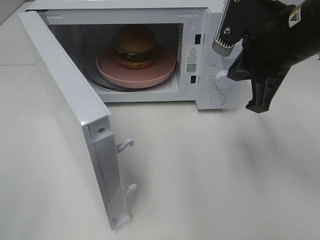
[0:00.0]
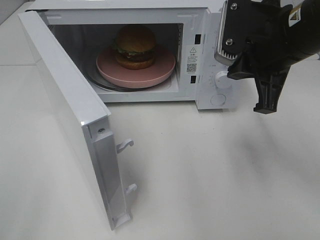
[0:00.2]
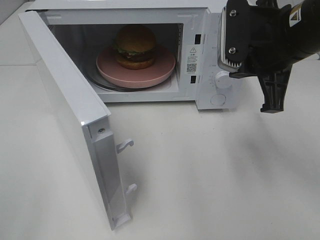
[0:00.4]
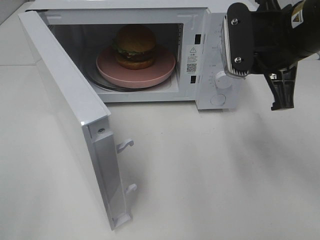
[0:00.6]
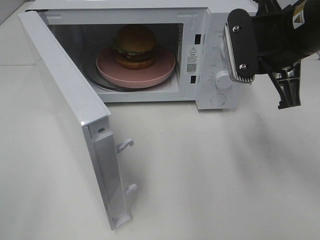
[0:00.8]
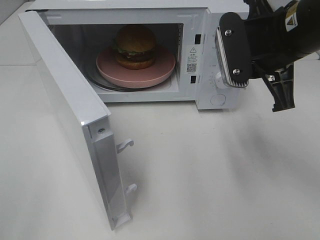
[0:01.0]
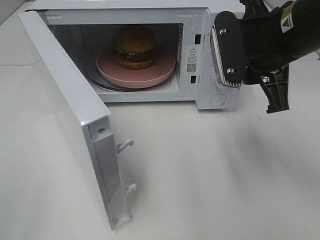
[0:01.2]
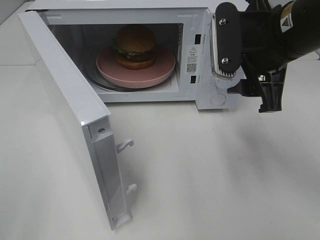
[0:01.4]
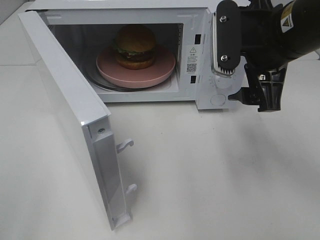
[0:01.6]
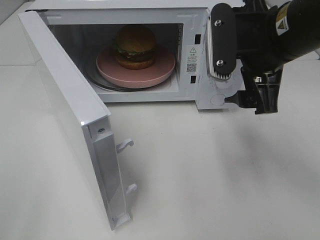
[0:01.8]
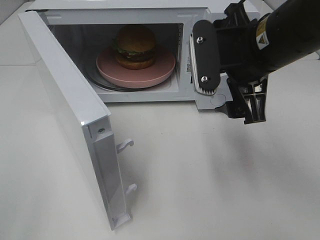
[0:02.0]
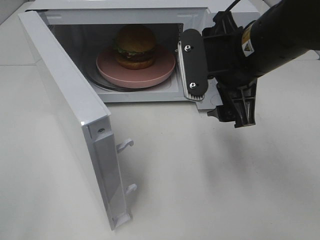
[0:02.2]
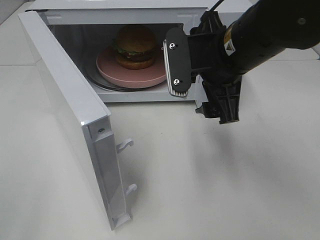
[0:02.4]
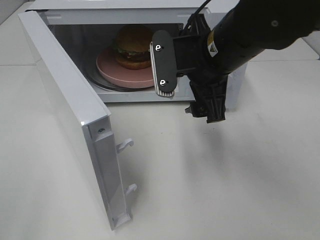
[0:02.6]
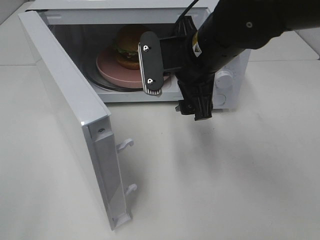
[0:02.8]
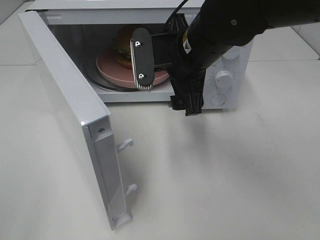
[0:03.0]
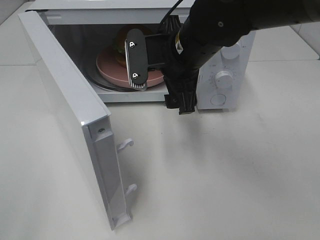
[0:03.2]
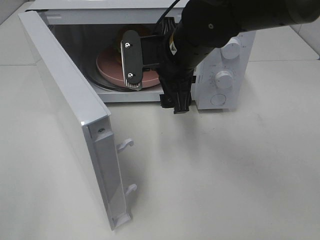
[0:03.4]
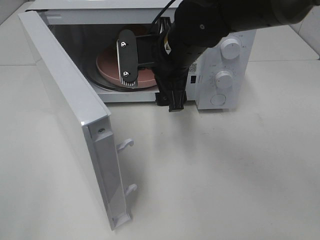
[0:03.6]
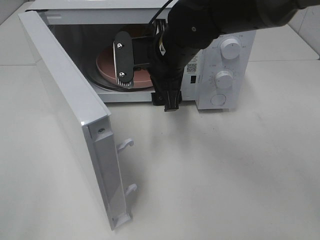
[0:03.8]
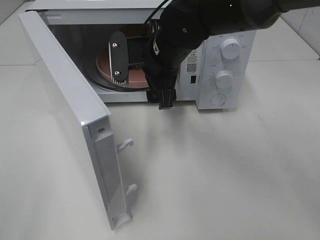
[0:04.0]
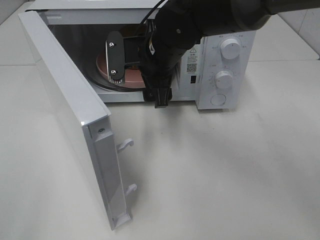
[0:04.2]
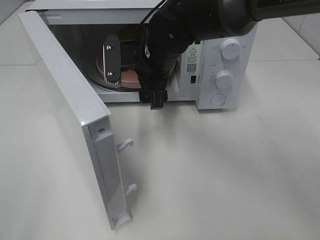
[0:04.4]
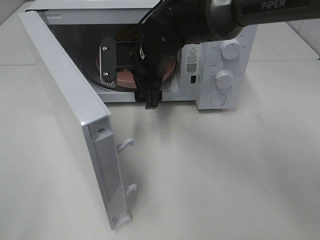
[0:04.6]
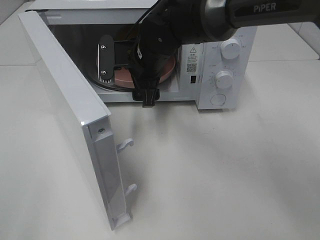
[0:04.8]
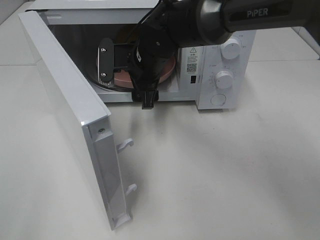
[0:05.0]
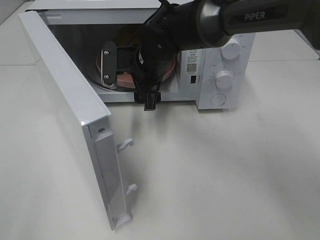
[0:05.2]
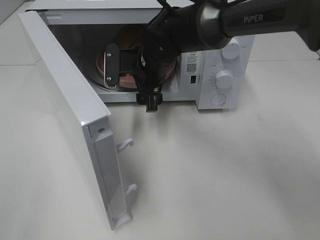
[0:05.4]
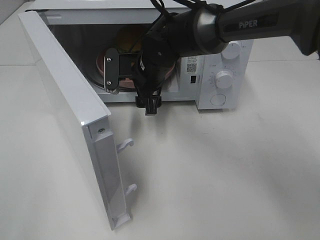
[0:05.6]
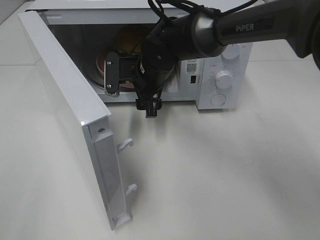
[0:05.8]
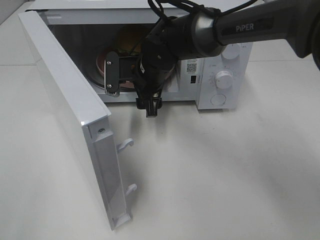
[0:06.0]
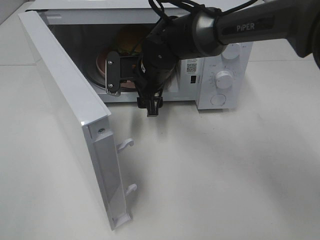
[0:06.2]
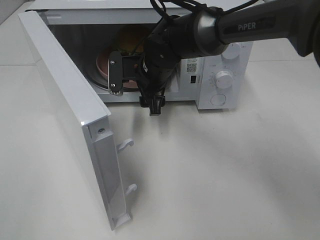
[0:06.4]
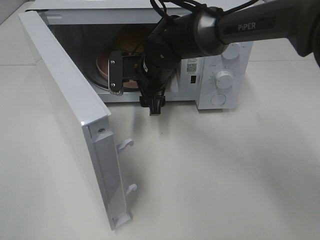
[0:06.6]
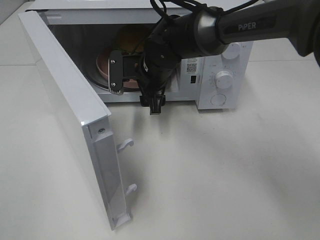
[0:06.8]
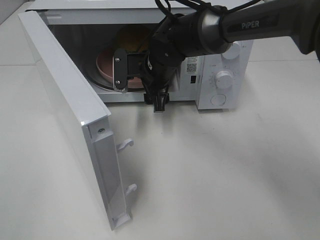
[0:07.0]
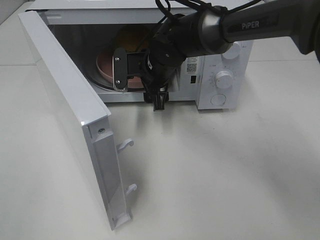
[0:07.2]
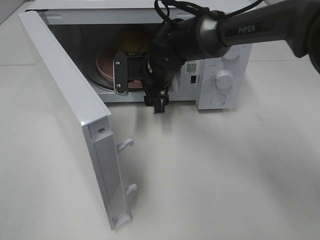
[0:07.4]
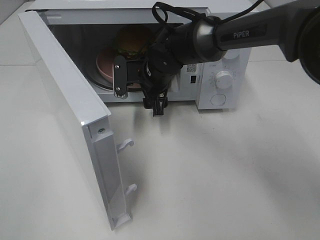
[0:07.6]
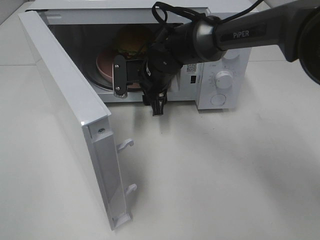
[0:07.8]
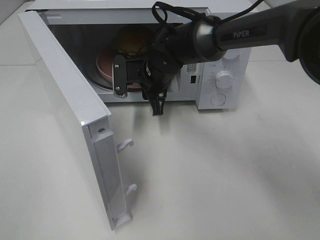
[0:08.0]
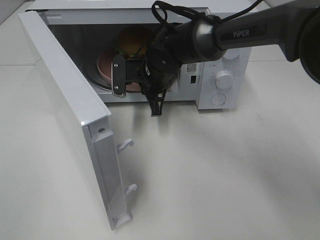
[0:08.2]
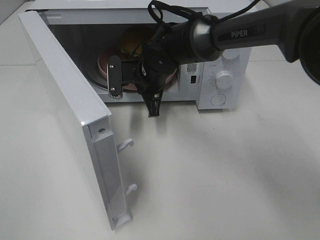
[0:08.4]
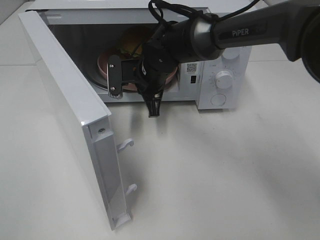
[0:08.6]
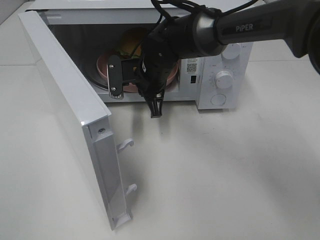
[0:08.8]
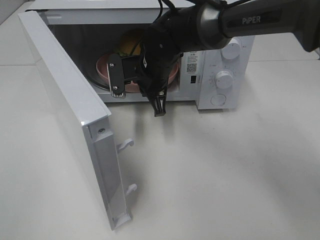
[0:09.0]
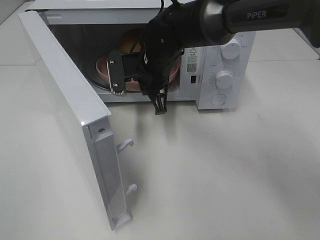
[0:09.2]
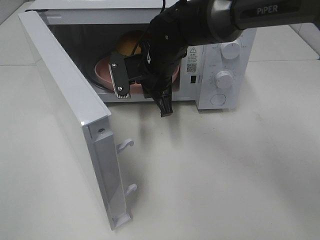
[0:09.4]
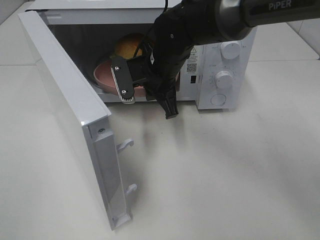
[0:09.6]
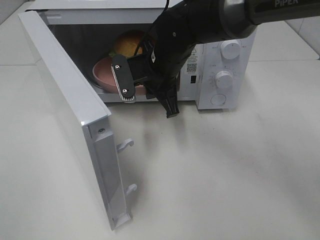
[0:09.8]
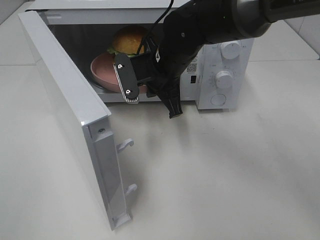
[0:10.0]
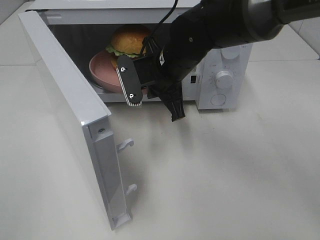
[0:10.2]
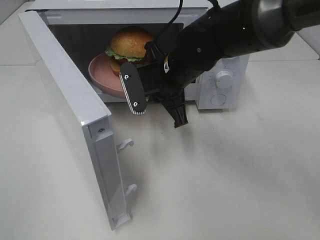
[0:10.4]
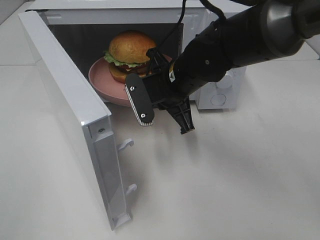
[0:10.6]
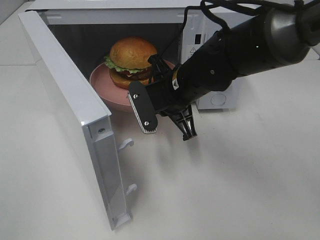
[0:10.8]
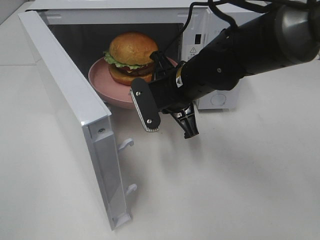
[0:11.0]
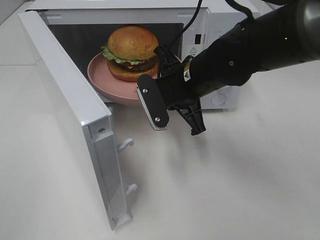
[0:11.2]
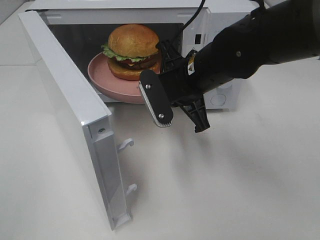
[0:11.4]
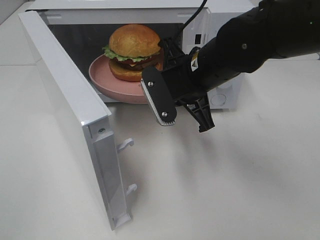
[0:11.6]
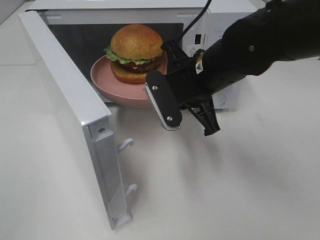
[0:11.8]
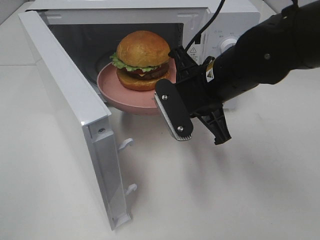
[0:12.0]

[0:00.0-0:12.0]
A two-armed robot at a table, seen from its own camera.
Task of the whole recording: Heat the burger.
Step, 0:00.0 to 0:08.2: Right hand: grab the plate with the hamburger.
0:00.0 to 0:01.6: The right gripper opens its fingers.
0:01.6 to 0:03.0: The right gripper goes roughly 10 cm to the left.
0:03.0 to 0:04.4: The right gripper goes approximately 10 cm forward and to the left.
0:04.4 to 0:06.0: The right gripper changes place by approximately 5 cm.
0:06.0 to 0:07.6: The grippers stay close to where they were, moving slightly.
0:07.6 to 0:09.0: The right gripper closes.
0:09.0 to 0:10.4: The right gripper travels backward by about 5 cm.
0:10.4 to 0:12.0: The right gripper moves backward and to the right, some 10 cm.

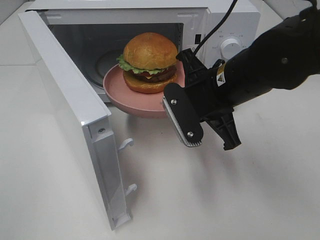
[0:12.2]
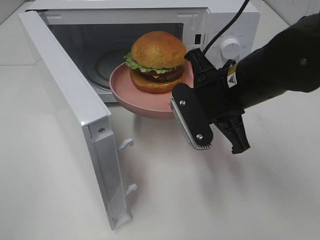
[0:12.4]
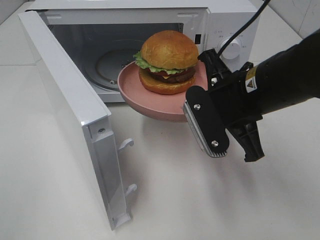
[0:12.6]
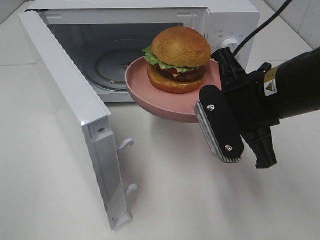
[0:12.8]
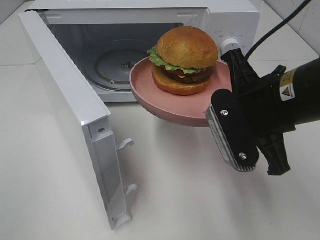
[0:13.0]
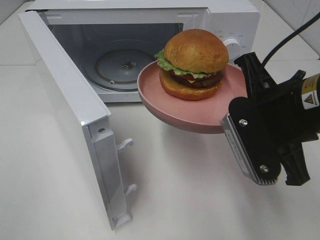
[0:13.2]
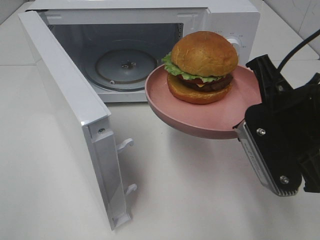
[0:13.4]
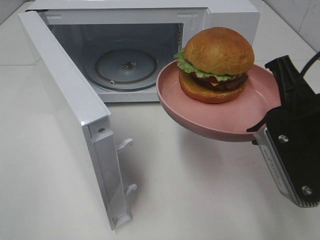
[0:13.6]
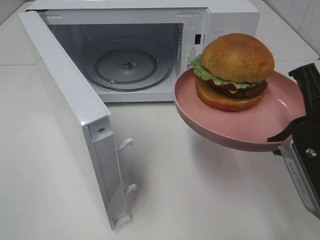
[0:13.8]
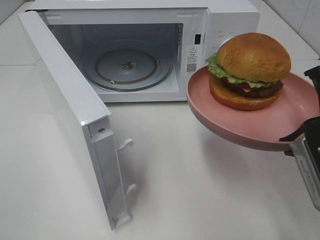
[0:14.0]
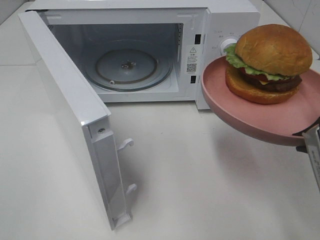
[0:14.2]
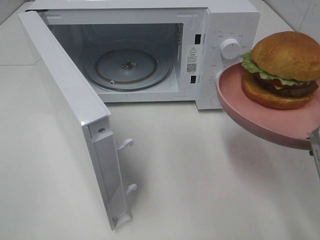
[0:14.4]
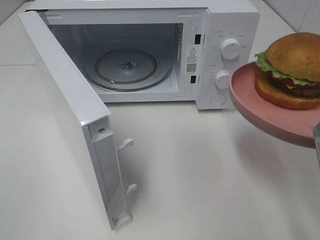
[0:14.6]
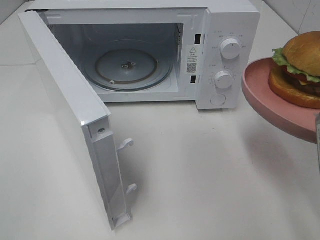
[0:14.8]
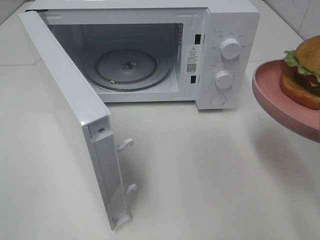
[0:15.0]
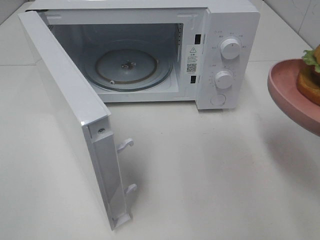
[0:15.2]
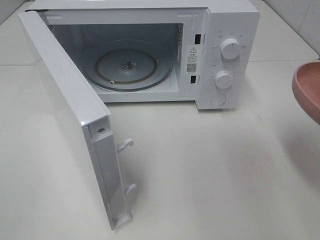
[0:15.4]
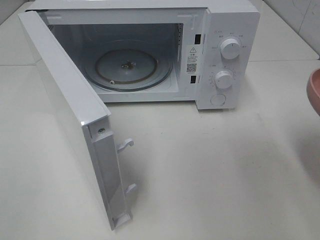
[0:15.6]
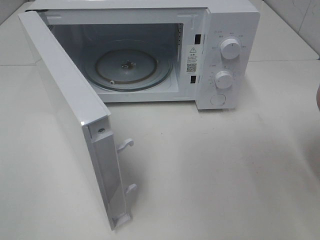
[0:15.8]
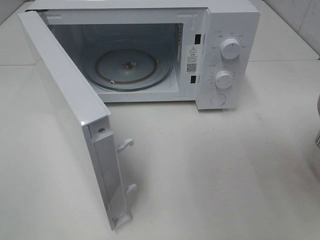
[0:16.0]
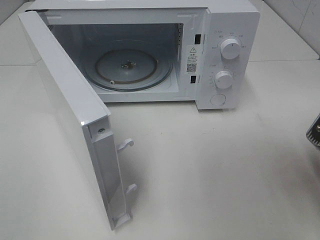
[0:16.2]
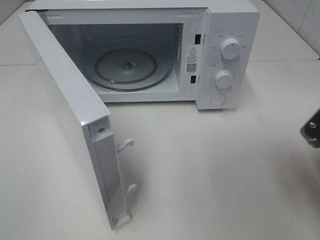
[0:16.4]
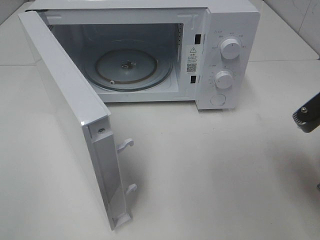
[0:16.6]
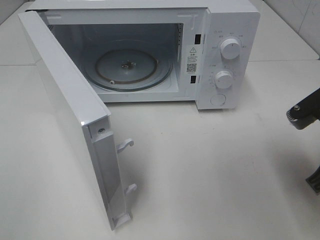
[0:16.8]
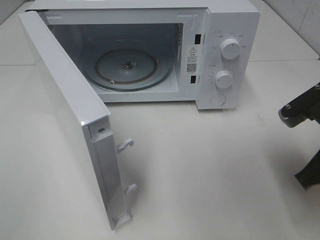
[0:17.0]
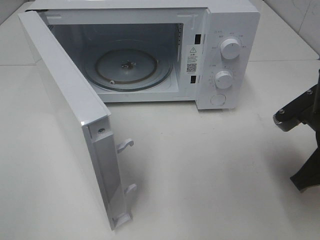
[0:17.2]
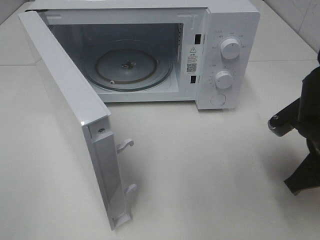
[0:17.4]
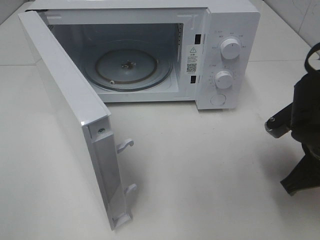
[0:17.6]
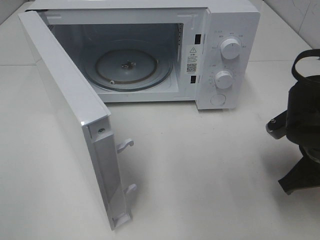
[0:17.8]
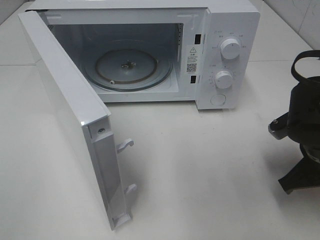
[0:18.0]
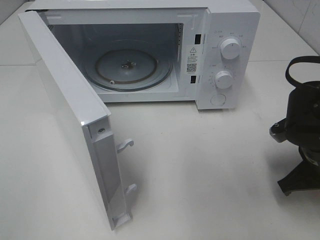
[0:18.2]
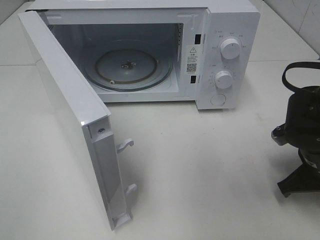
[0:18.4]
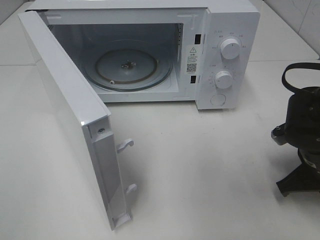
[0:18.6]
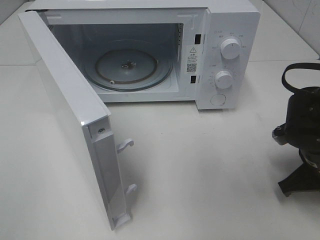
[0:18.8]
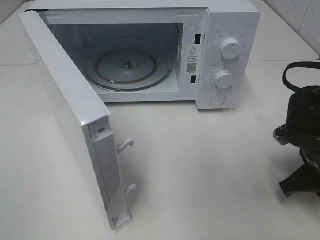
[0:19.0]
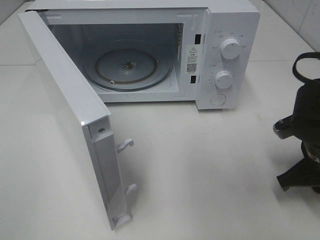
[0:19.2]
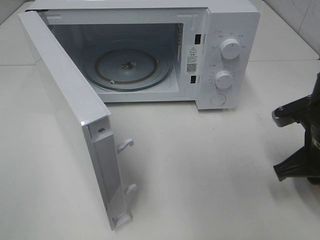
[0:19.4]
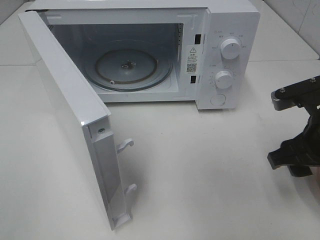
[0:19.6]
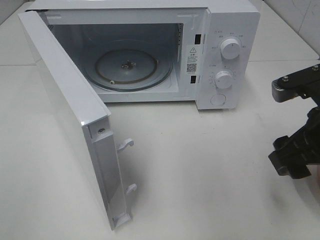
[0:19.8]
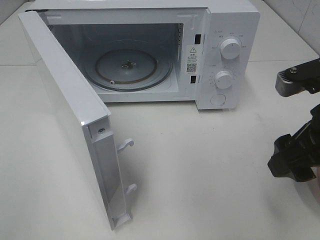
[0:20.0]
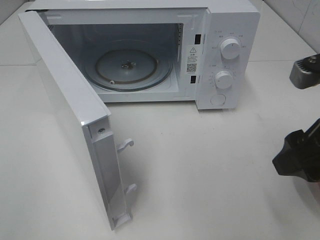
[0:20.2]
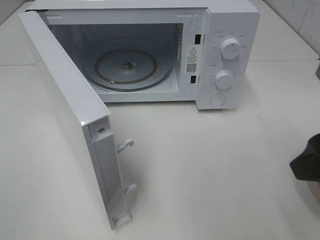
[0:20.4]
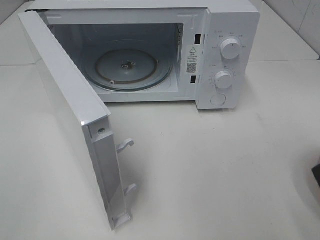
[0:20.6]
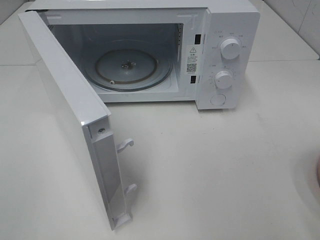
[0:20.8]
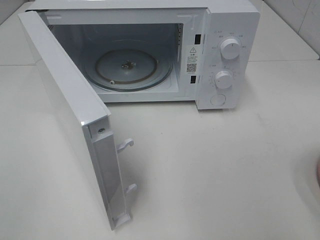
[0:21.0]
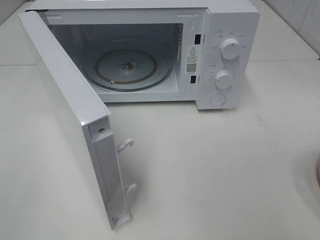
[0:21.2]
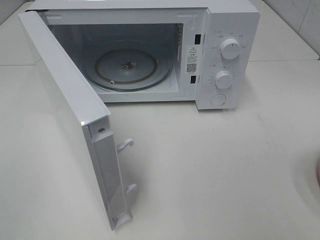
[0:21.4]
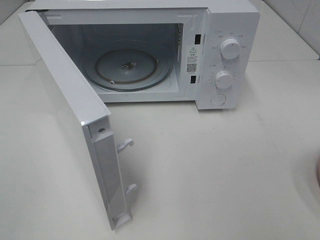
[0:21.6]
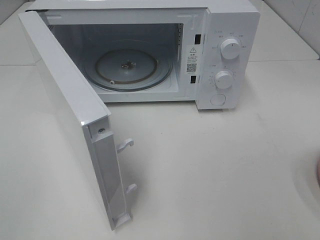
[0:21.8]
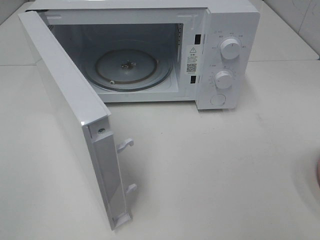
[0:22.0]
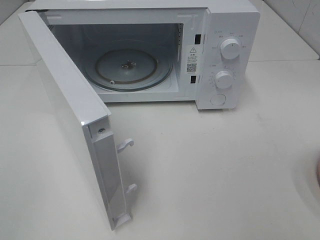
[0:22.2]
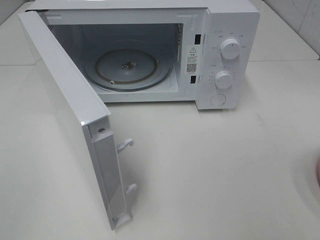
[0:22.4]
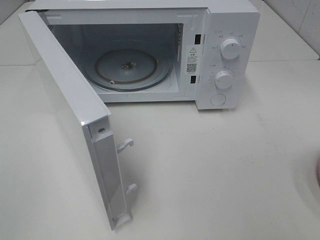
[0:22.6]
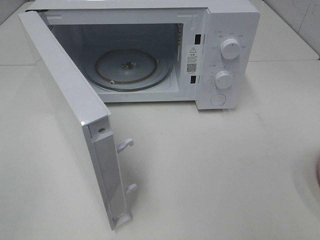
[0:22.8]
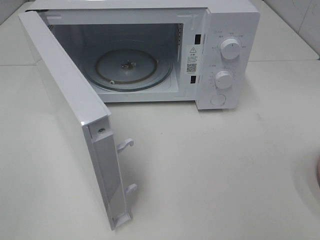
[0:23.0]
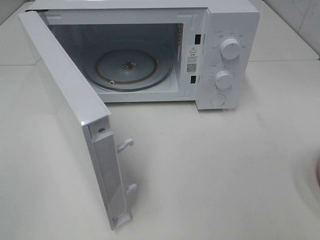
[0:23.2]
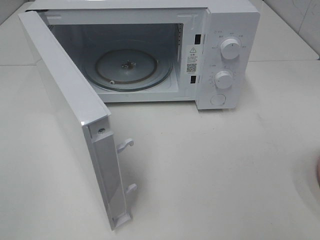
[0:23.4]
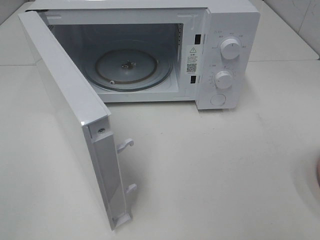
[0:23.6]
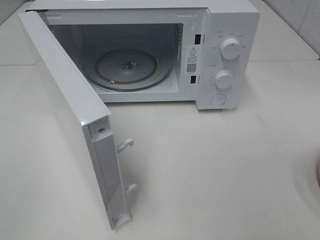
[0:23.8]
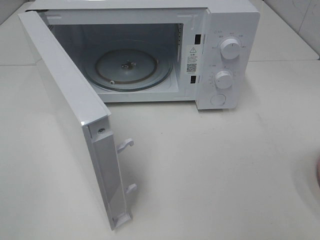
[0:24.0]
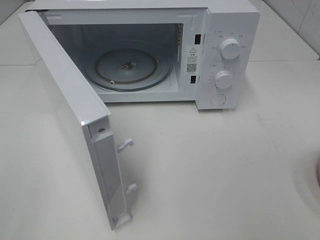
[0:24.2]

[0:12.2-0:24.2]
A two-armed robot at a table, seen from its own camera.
Task of the whole recording: Heat the burger.
Step, 0:12.2 to 0:19.0: Right hand: place the plate on the table.
0:12.2 to 0:13.8: The right gripper goes some 15 cm backward and to the right.
0:15.2 to 0:16.6: The right gripper changes place by some 5 cm.
0:16.6 to 0:18.2: The right gripper goes about 10 cm downward and forward.
0:18.2 to 0:19.8: The right gripper goes some 10 cm upward, and opens its fingers.
0:19.8 to 0:21.2: The right gripper is displaced backward, upward and to the right by about 15 cm.
0:22.6 to 0:24.2: The two grippers keep their place.
